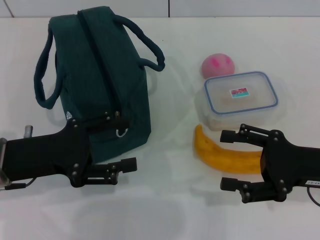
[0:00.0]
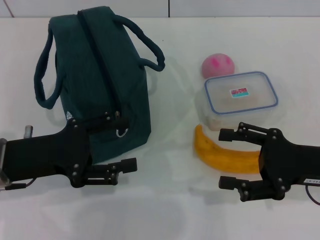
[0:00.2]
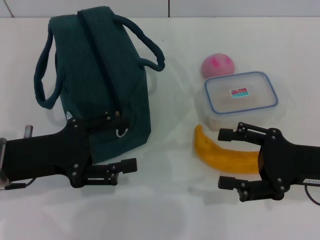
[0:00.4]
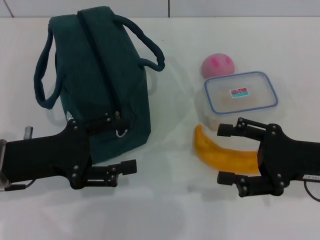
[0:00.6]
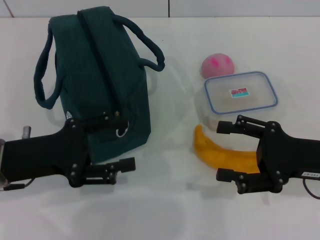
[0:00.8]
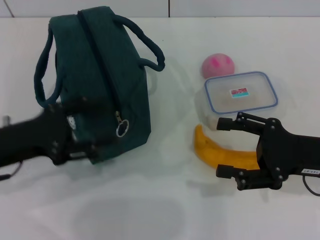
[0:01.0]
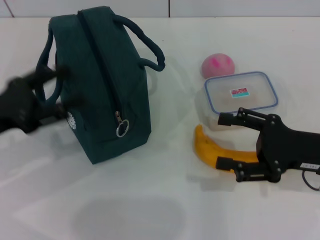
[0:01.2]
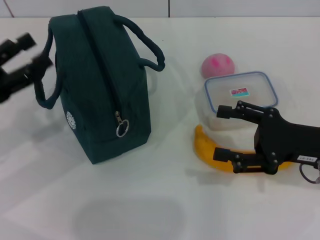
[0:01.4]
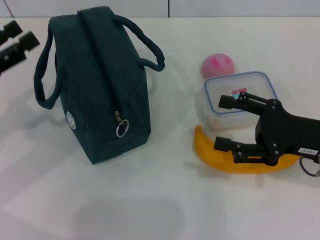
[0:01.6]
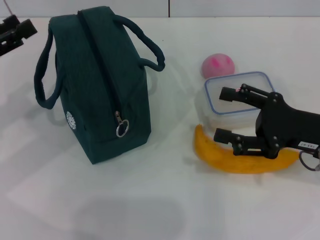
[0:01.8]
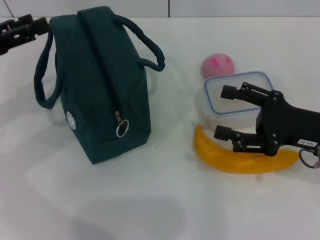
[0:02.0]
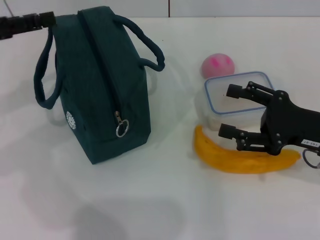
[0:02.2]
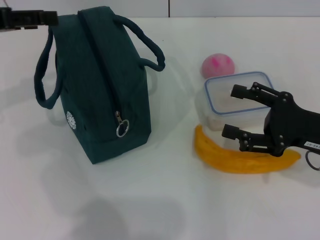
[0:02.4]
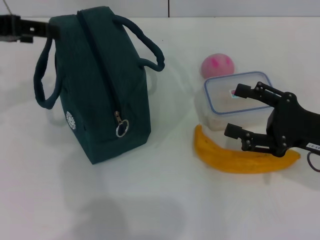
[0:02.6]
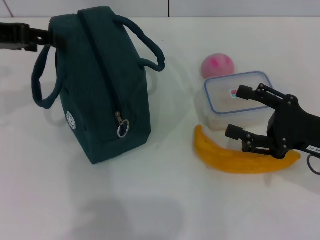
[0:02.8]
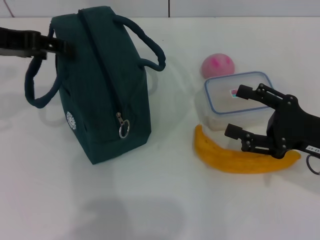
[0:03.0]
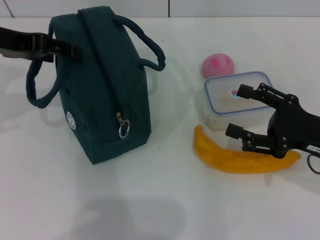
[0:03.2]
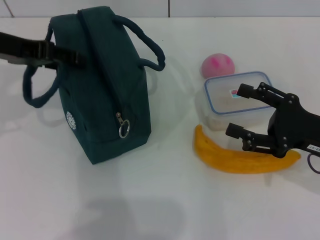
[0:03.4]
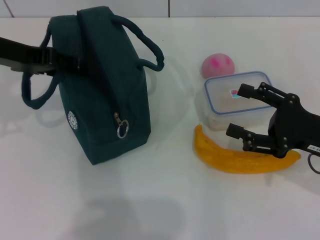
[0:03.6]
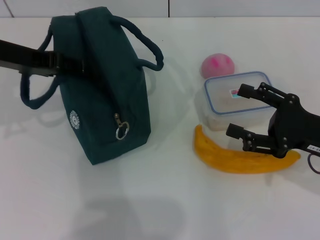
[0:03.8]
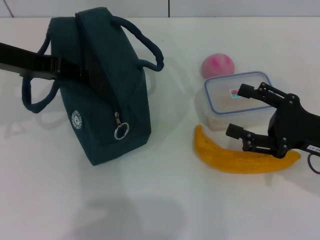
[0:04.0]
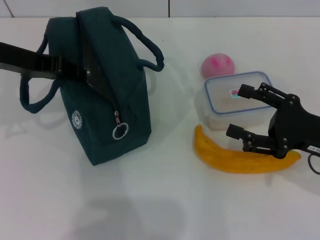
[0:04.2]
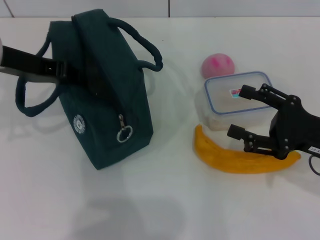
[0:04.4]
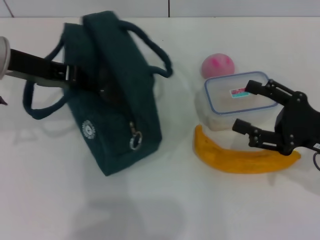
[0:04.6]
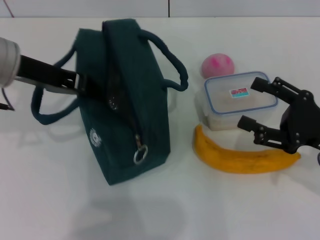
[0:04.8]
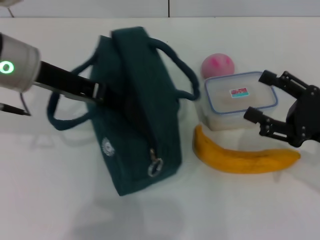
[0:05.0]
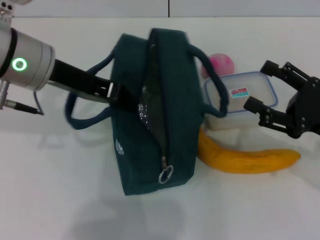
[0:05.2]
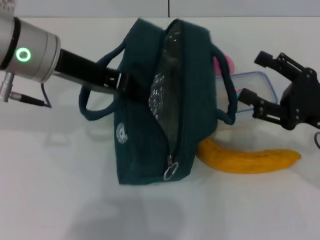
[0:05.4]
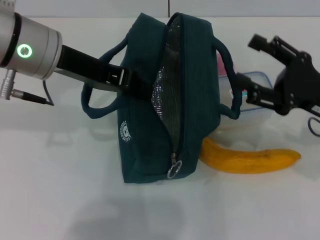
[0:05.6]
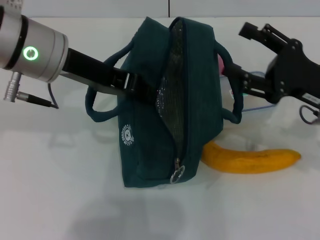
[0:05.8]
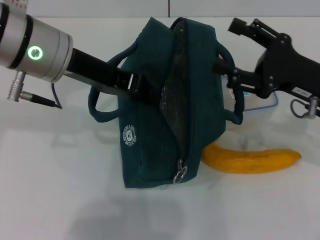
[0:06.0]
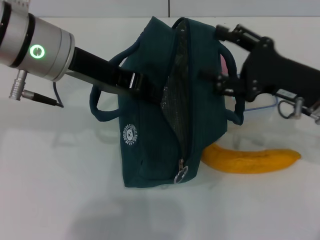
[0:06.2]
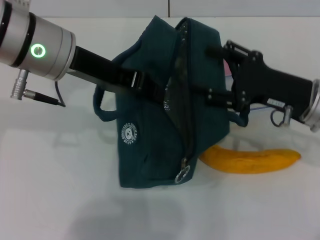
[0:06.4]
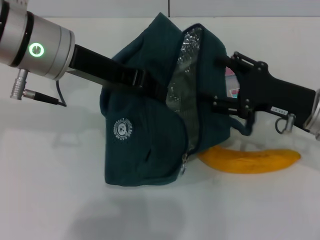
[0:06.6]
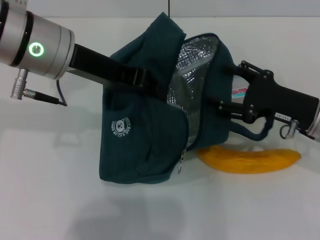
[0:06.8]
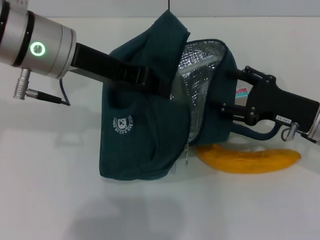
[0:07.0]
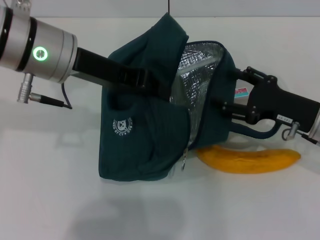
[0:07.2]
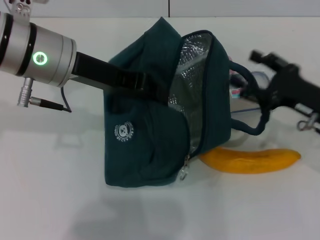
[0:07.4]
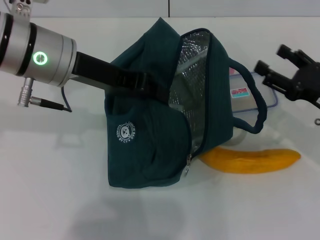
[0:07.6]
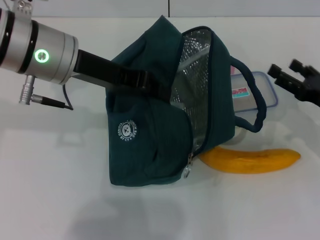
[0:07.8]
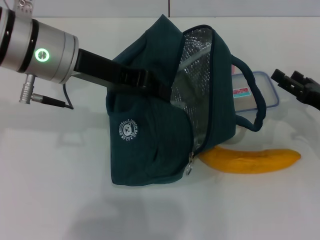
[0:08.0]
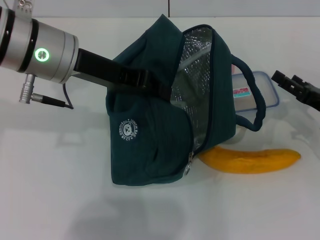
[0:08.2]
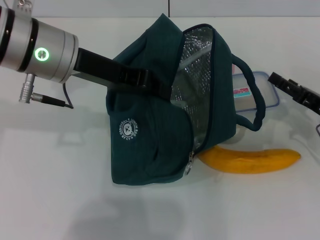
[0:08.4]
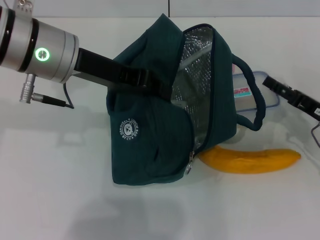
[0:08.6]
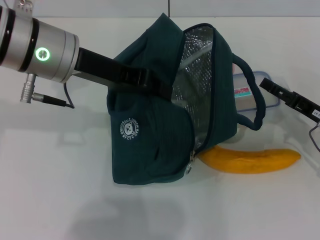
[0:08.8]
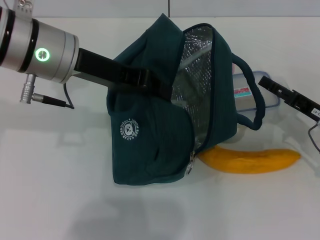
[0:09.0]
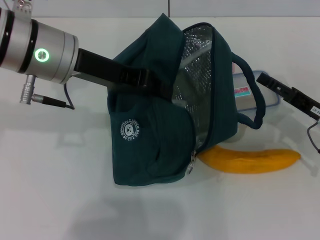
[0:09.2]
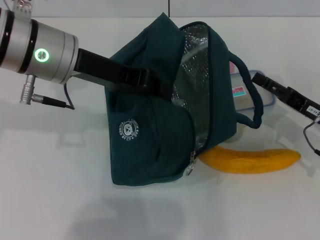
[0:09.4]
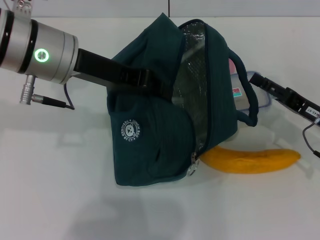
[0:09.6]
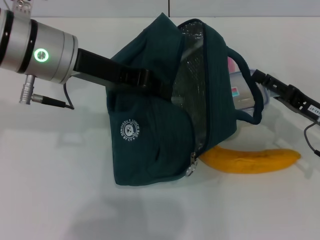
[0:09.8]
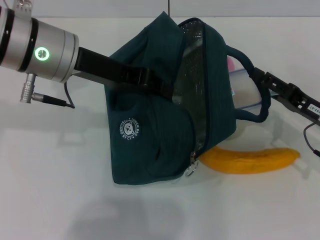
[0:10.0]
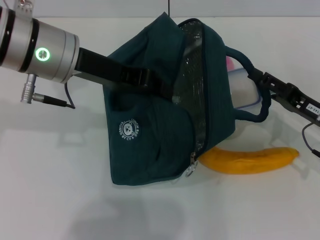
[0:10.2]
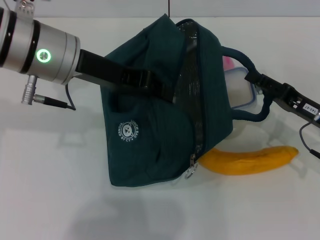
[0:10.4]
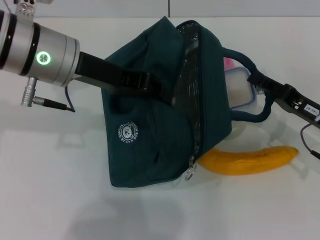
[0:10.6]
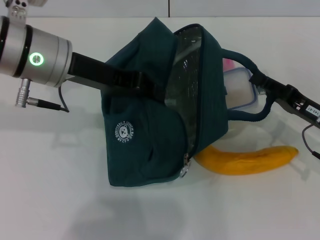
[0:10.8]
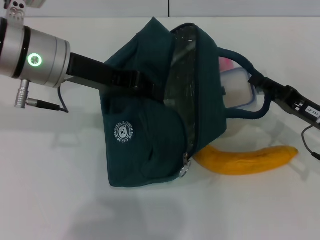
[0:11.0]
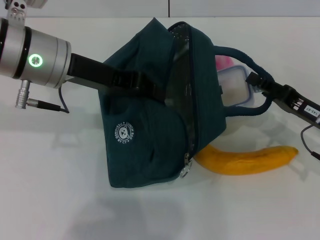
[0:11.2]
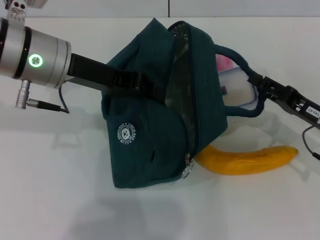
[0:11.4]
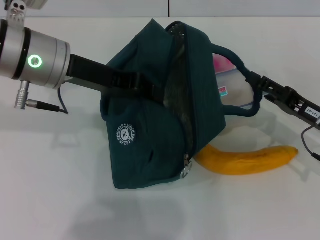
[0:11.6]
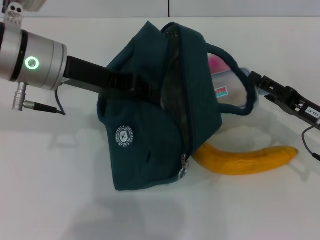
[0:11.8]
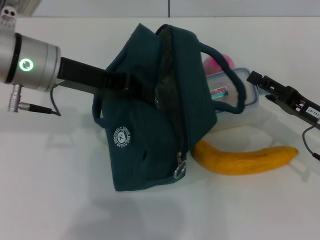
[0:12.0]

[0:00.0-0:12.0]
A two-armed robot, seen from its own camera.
Step, 0:00.0 to 0:04.2: Hold the lunch bag with your left hand.
0:00.0 to 0:01.6: The left gripper travels to the left by roughly 10 cm.
0:01.6 to 0:03.0: The left gripper shifts some 15 cm upward, forward and to the right.
0:03.0 to 0:04.4: The left gripper closes its fingers.
0:04.4 to 0:06.0: The left gripper moves to the right, about 10 cm. Meanwhile the right gripper changes place by about 5 cm.
0:06.0 to 0:07.6: The right gripper shifts some 5 cm downward and to the right.
0:09.0 to 0:12.0: The grippers stay close to where they were, moving slightly.

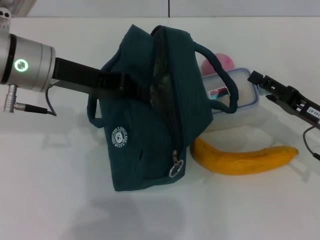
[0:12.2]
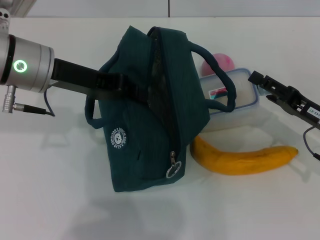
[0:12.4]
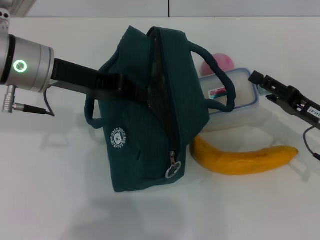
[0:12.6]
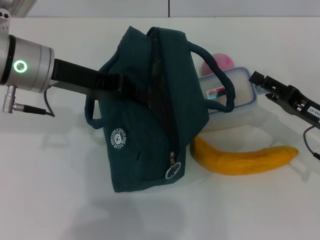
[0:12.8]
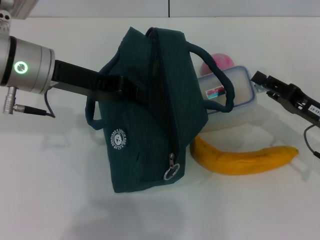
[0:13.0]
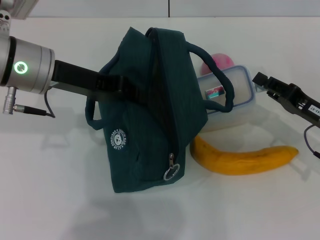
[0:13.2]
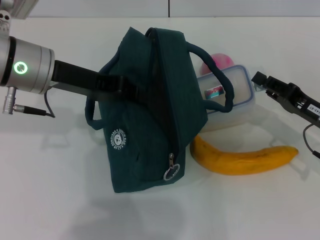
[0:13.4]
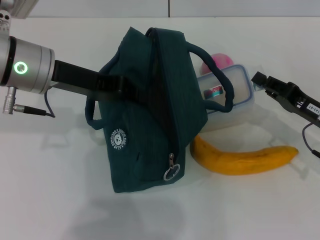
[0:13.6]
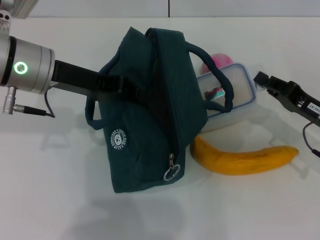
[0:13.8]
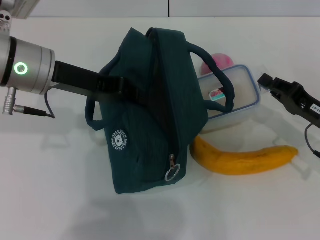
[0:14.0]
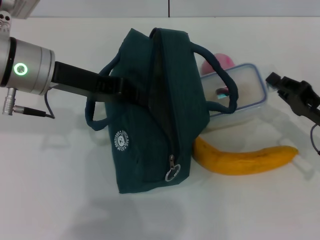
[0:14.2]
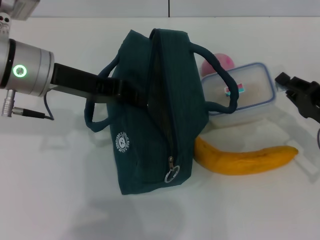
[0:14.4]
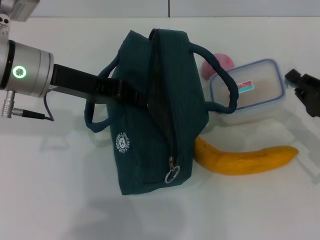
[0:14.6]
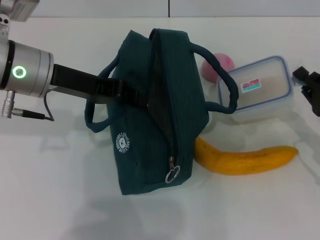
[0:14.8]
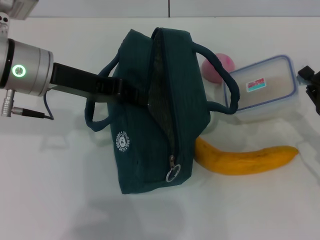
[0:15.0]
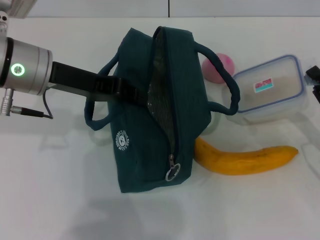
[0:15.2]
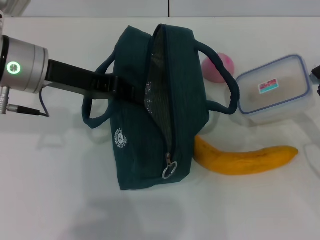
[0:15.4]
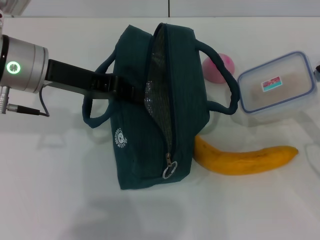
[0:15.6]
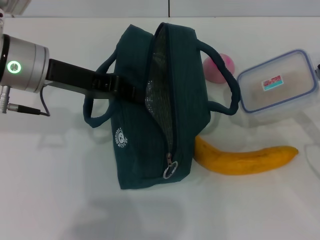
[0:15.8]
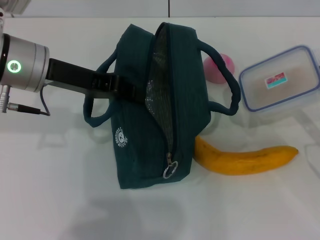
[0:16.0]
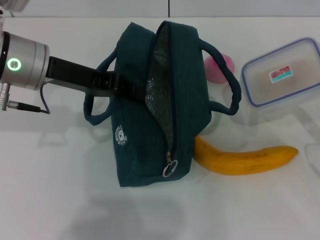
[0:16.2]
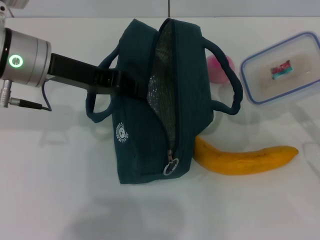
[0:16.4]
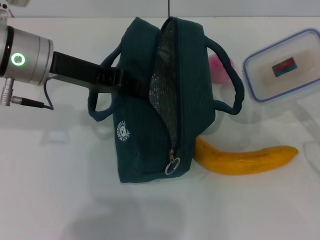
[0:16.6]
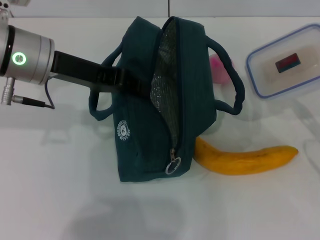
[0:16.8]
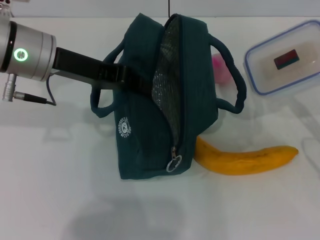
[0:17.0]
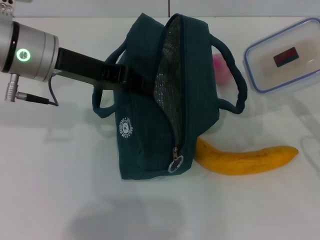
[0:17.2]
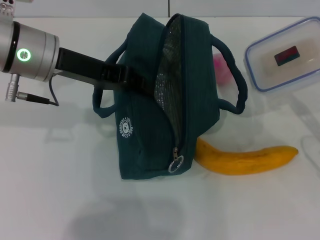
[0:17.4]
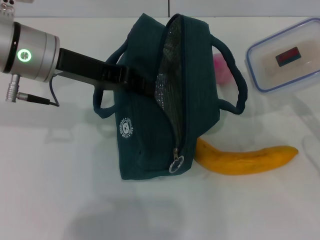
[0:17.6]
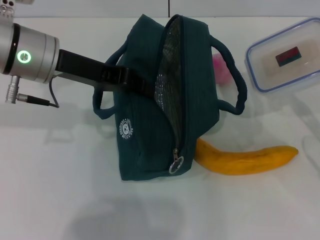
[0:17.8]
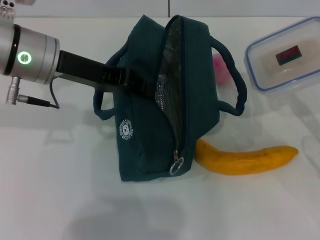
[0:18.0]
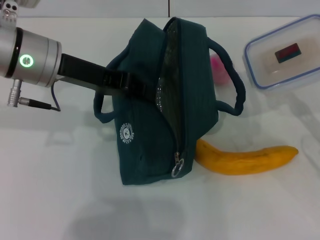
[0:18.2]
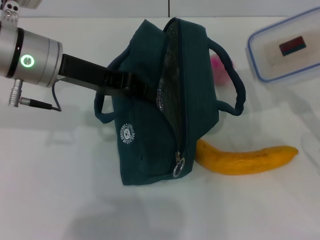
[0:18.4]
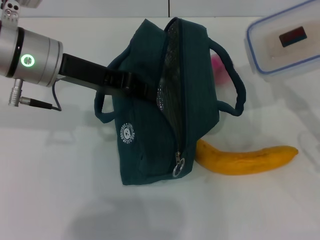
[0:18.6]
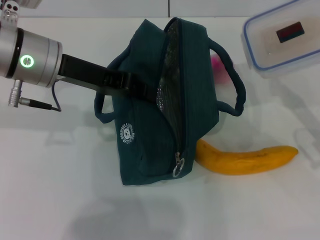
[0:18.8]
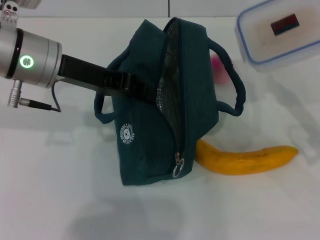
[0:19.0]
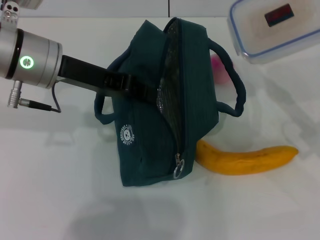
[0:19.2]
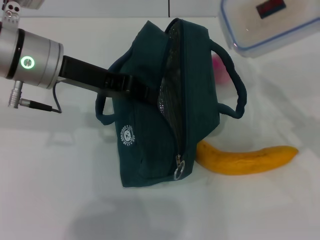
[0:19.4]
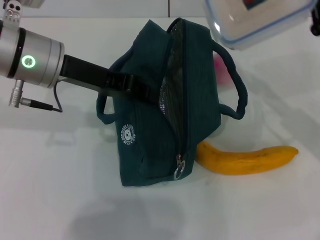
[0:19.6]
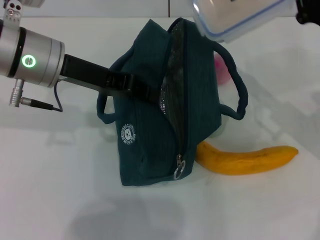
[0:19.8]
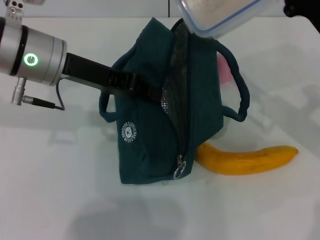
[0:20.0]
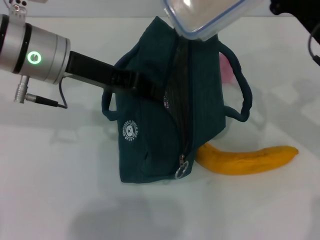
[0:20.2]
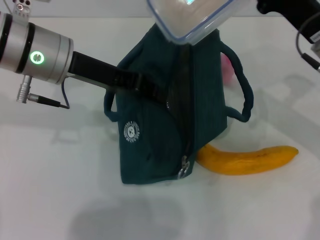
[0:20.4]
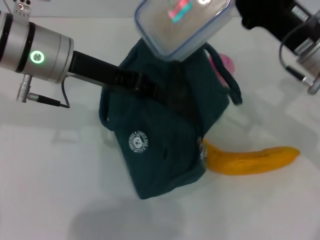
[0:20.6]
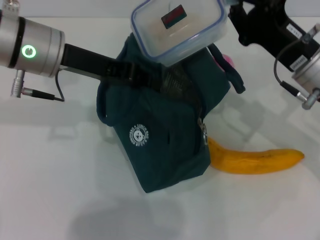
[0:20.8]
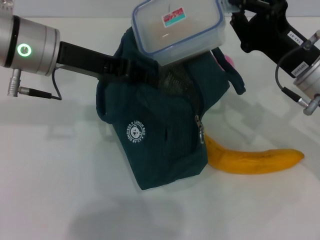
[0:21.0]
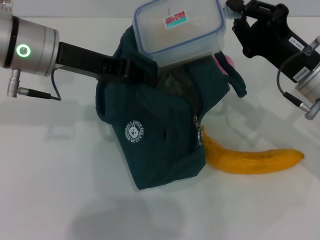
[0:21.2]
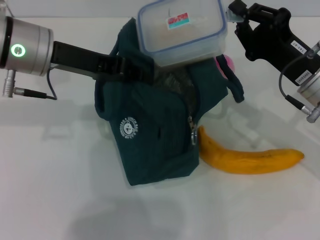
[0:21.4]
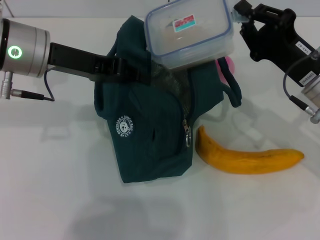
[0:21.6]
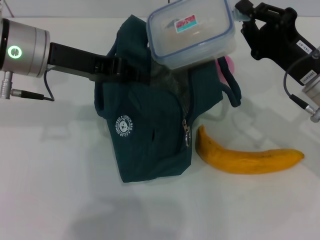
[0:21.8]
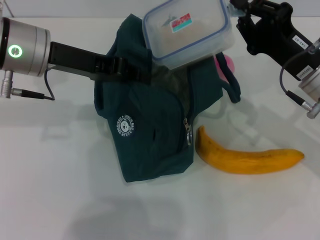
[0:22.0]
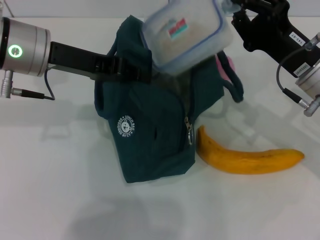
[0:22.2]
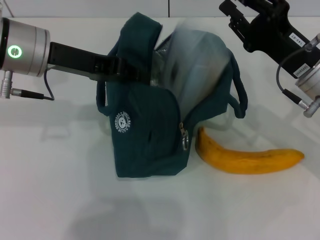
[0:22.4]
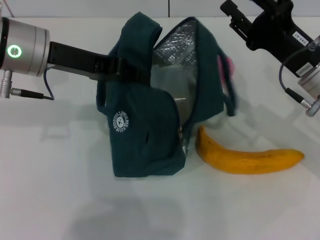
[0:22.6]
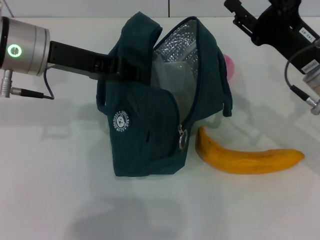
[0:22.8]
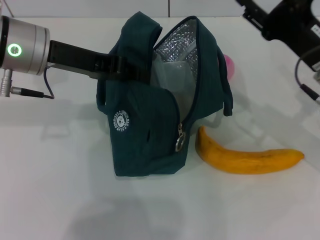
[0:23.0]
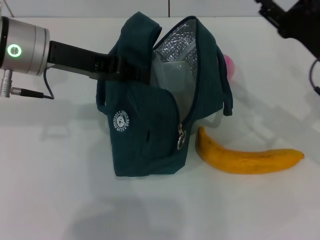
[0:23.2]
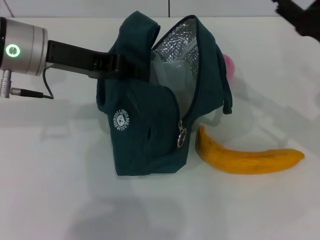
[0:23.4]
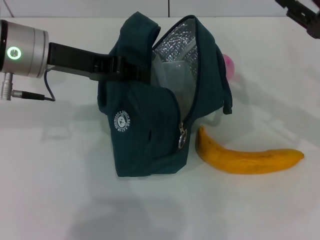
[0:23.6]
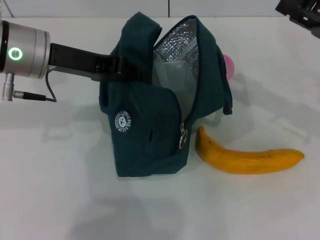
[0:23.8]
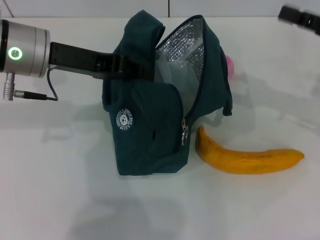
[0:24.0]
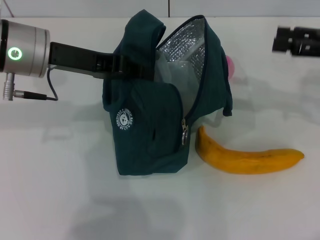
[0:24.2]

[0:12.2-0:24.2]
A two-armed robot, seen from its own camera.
Step, 0:13.8 to 0:22.6: Place the lunch box into the lunch bag with your right hand.
0:12.2 to 0:13.8: The right gripper closes.
0:13.8 to 0:15.2: The right gripper moves roughly 5 cm.
0:15.2 to 0:16.6: The grippers stay close to where they were, moving slightly.
0:16.6 to 0:18.2: The grippers make only small movements.
0:18.2 to 0:19.8: The right gripper shifts roughly 10 cm forward, upward and to the left.
0:19.8 to 0:21.2: The right gripper shifts by some 5 cm.
0:21.2 to 0:22.6: Both grippers stay about where they are.
0:22.6 to 0:24.2: The right gripper goes some 15 cm to the right and upward, and opens up.
